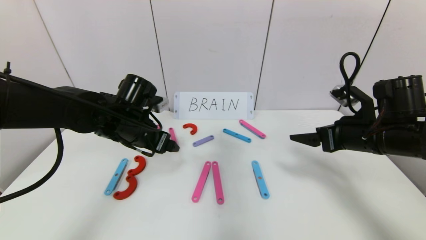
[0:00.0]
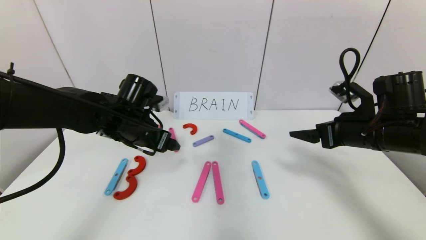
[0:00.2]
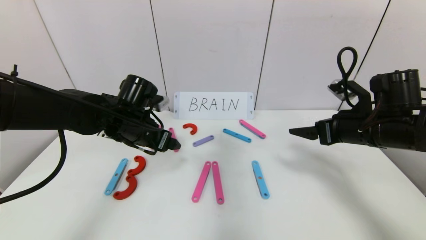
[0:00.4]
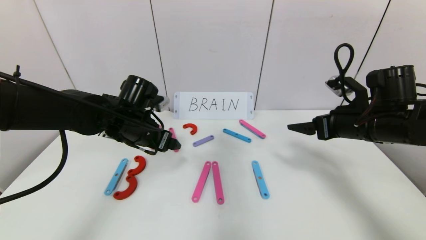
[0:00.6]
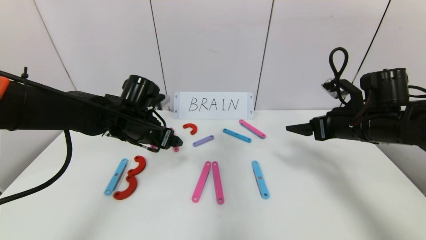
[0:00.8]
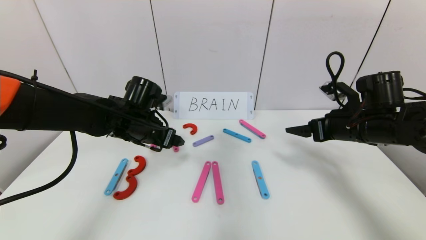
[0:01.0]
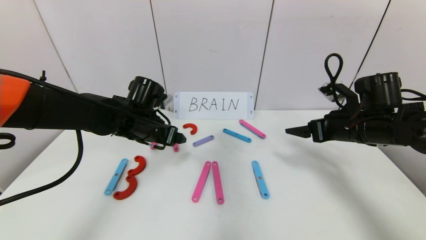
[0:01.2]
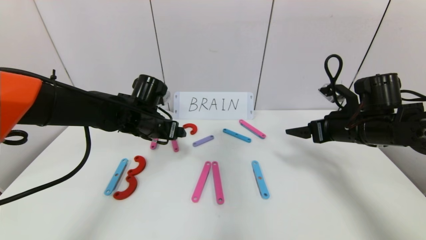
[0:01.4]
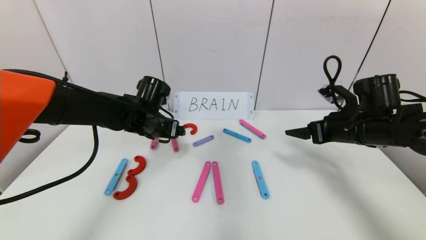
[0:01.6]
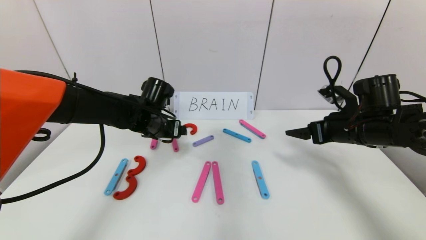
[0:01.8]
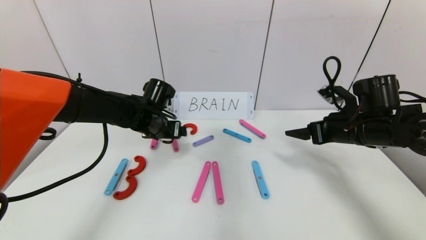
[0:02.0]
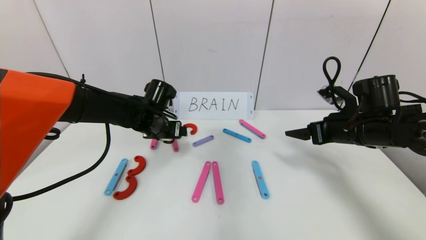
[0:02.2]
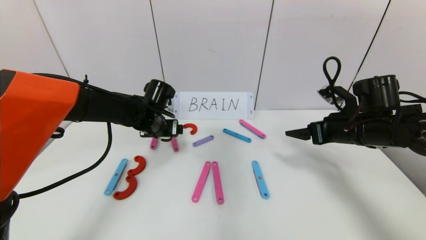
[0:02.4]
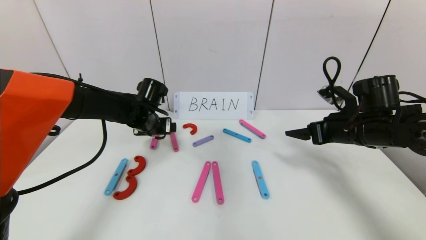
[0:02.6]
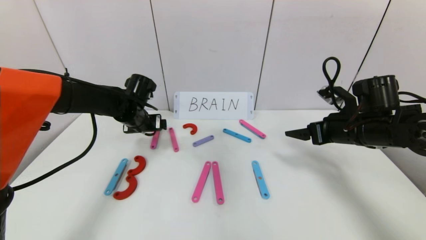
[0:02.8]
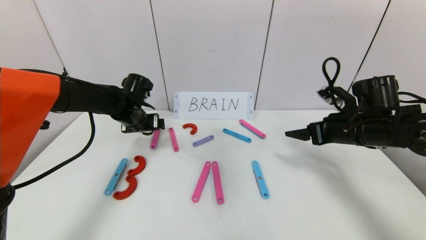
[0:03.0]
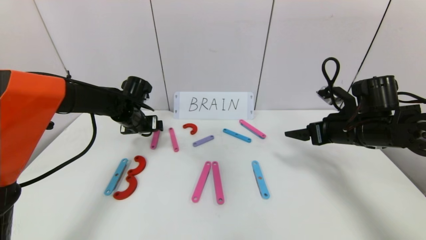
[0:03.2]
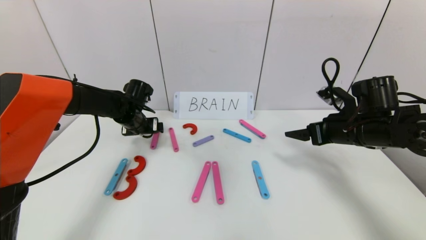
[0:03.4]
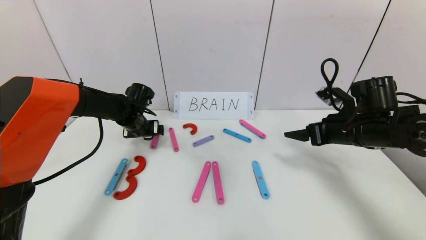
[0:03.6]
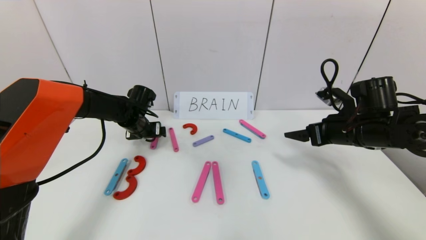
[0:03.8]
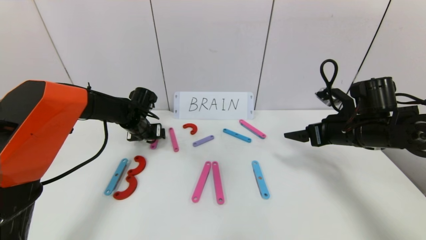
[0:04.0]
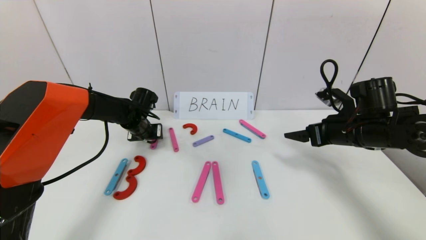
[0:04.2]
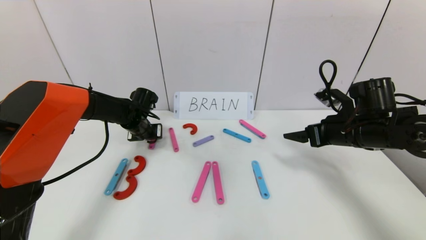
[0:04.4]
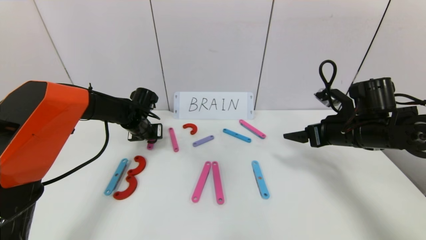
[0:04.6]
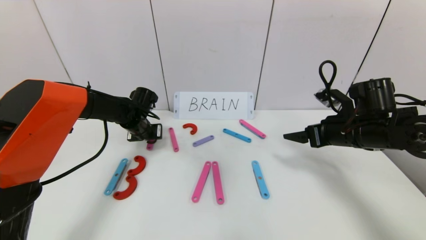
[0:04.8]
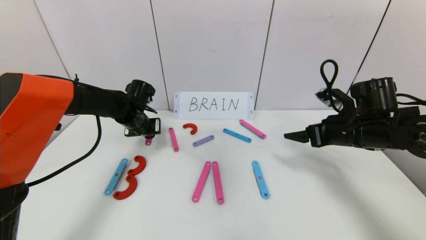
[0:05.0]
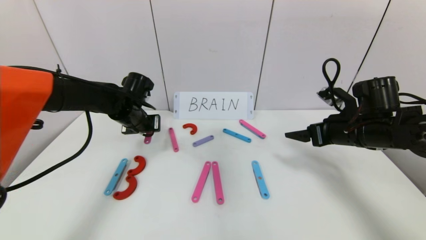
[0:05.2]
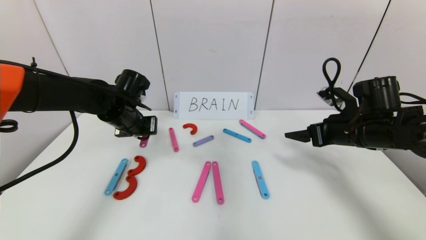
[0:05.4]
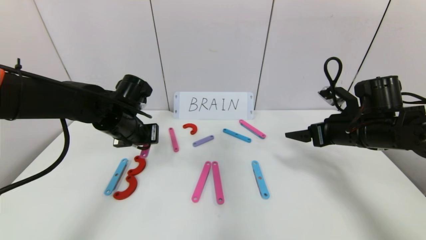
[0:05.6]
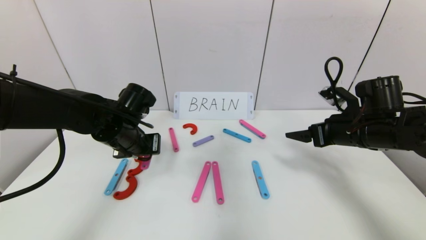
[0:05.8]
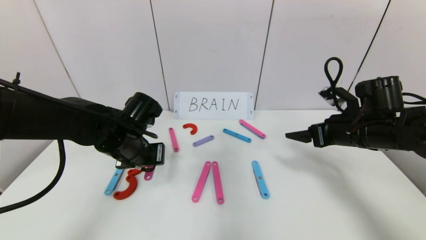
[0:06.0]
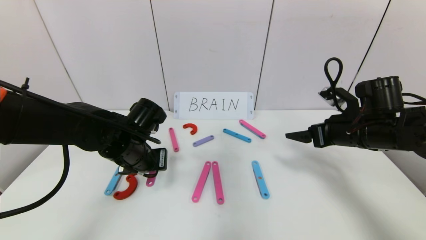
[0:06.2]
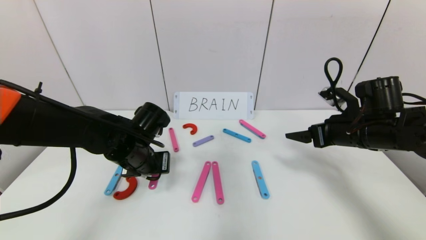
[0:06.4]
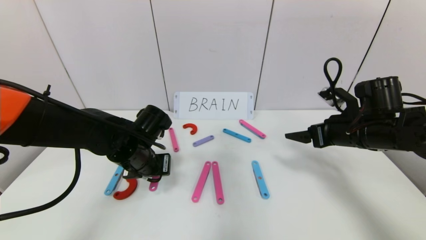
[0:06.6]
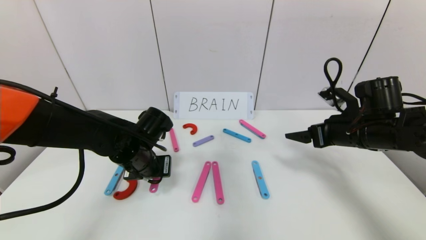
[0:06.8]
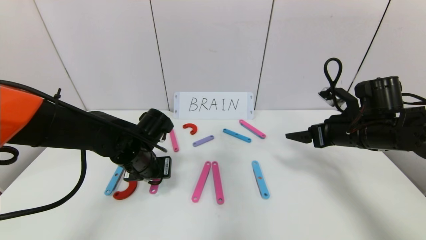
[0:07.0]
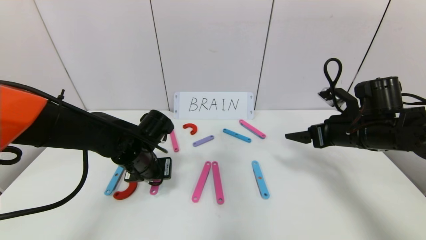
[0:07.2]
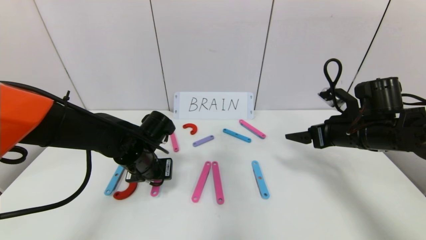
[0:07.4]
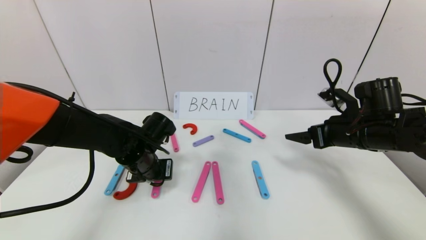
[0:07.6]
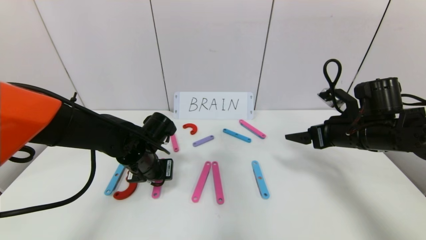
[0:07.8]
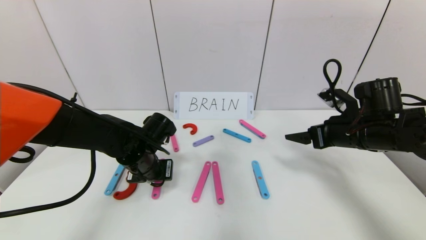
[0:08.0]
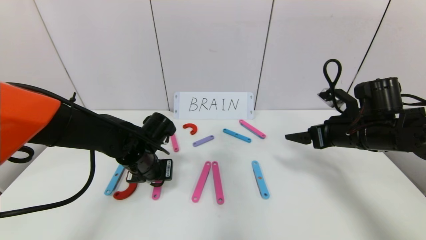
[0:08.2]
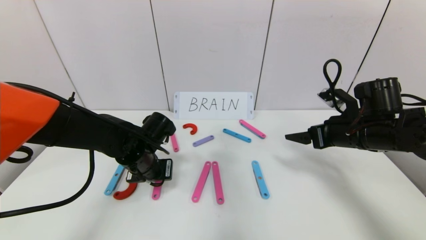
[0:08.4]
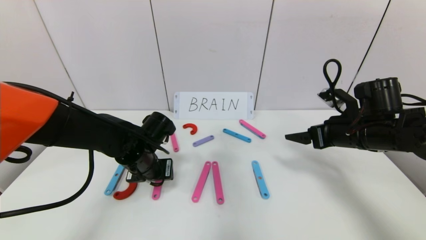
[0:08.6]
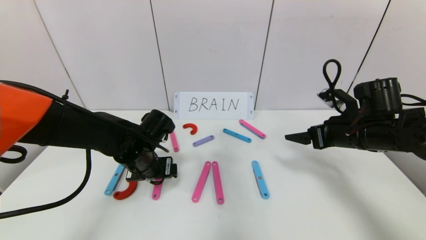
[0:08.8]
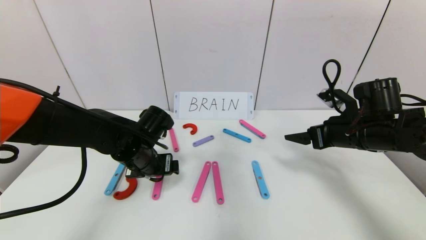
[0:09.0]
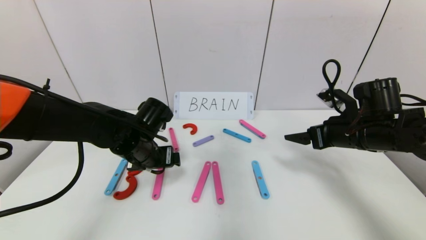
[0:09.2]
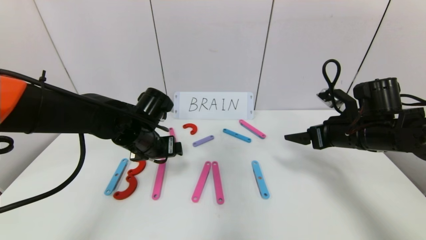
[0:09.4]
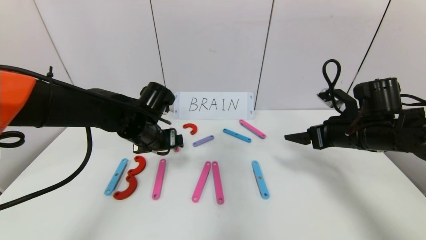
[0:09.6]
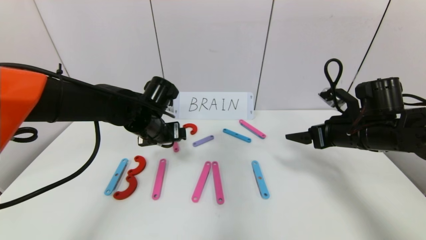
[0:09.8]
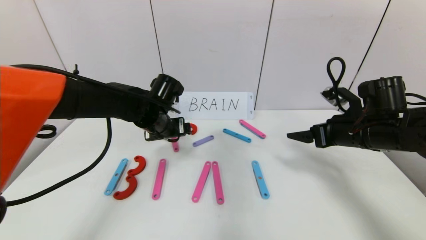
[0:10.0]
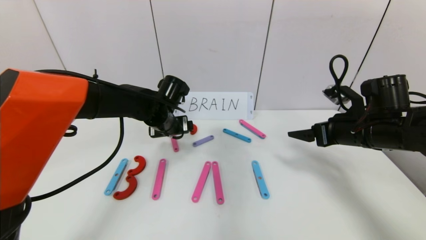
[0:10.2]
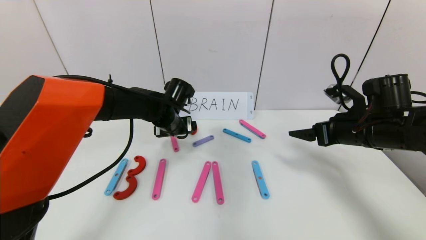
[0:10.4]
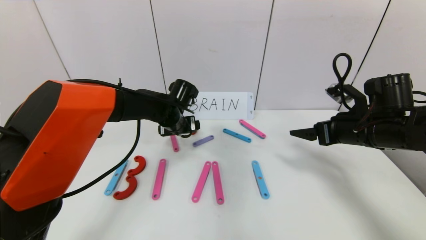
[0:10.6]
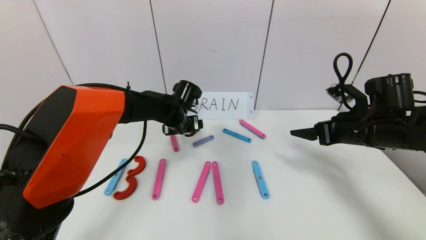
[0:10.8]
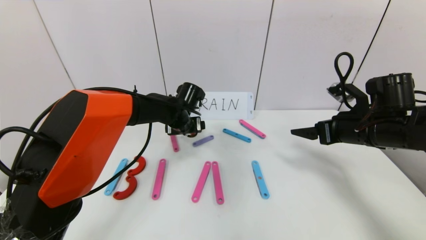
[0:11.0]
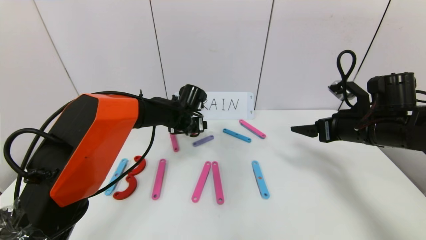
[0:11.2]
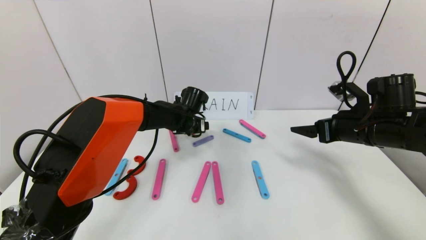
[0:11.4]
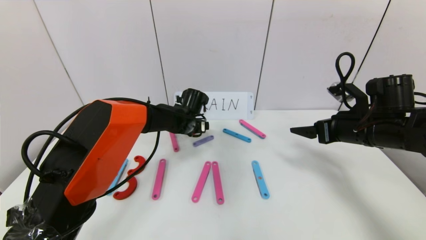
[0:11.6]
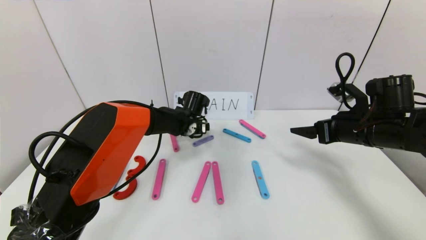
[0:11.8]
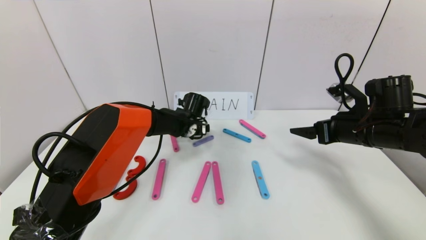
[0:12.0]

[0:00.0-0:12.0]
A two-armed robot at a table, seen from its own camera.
Task of the whole recording: rearrange the word baai as brain.
0:00.0 to 0:01.6: The left gripper ends up roughly 5 cm from where it was.
0:01.6 to 0:03.0: The left gripper goes about 5 cm to the left.
0:03.0 to 0:04.4: The left gripper ends up some 5 cm from where it was, and closes its fingers.
0:04.4 to 0:06.0: The left gripper goes approximately 15 cm backward.
0:06.0 to 0:07.6: The grippers move only a little.
0:07.6 to 0:09.0: The left gripper opens its fingers.
0:09.0 to 0:10.4: The left gripper moves forward, some 10 cm.
0:10.4 to 0:12.0: The left gripper goes some 10 cm downward and forward.

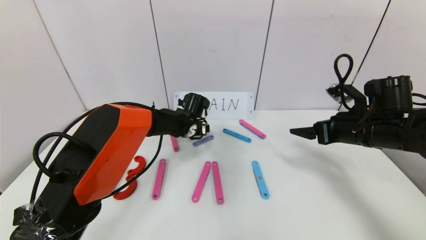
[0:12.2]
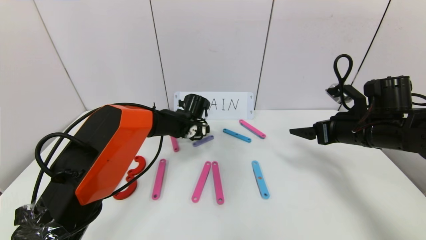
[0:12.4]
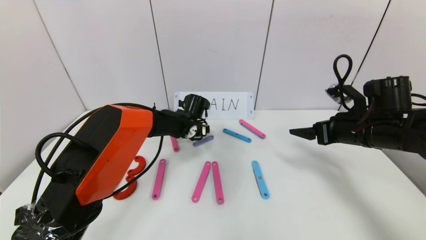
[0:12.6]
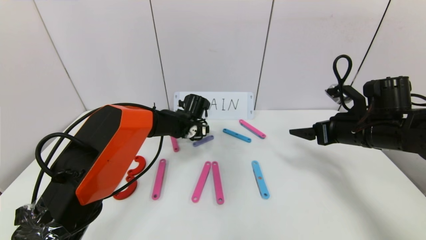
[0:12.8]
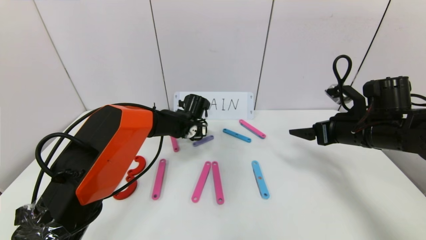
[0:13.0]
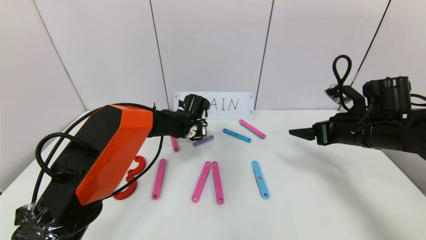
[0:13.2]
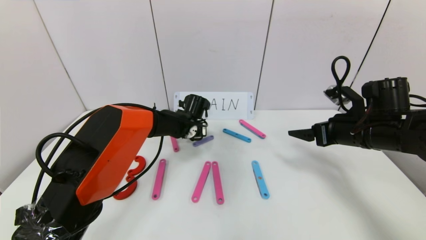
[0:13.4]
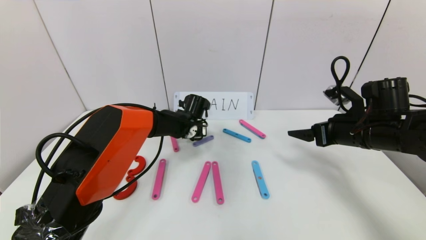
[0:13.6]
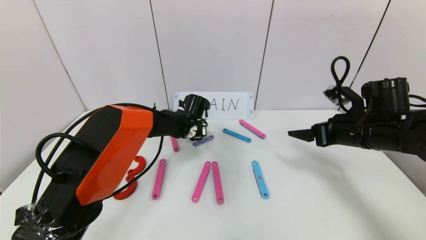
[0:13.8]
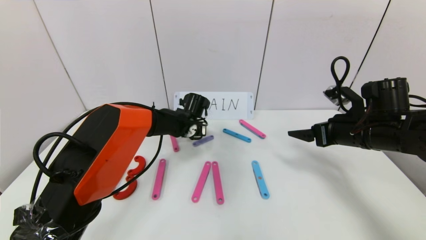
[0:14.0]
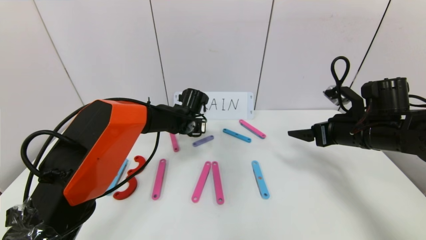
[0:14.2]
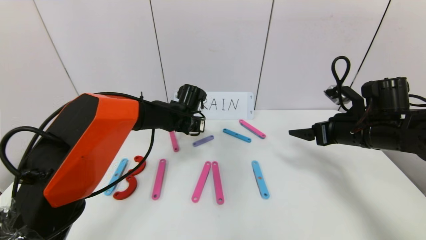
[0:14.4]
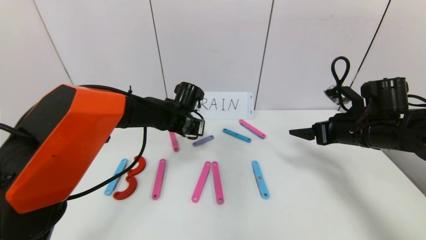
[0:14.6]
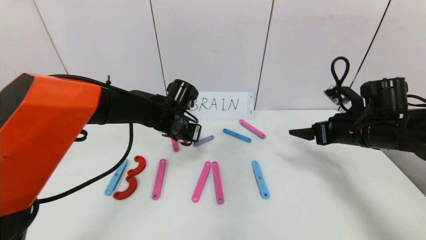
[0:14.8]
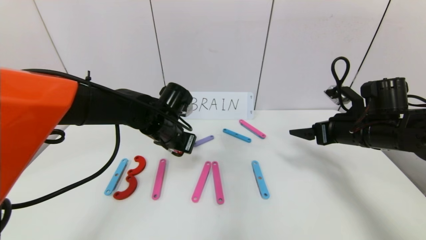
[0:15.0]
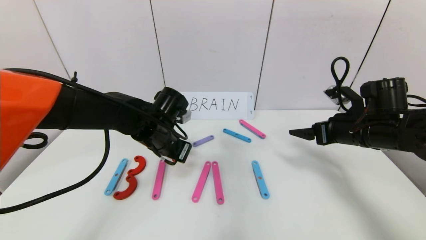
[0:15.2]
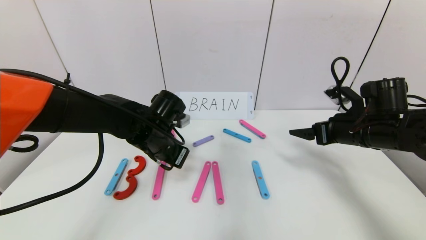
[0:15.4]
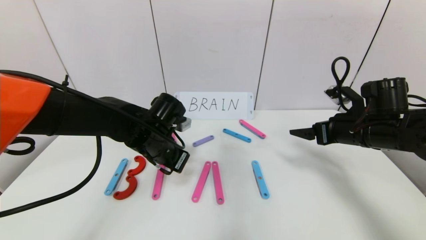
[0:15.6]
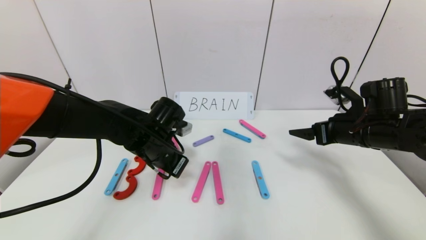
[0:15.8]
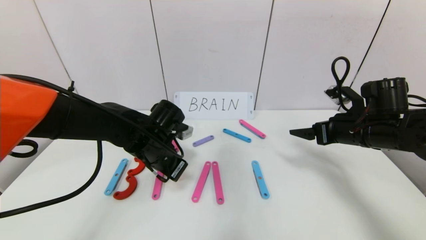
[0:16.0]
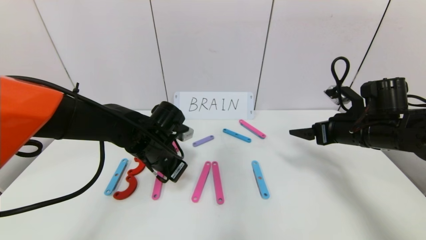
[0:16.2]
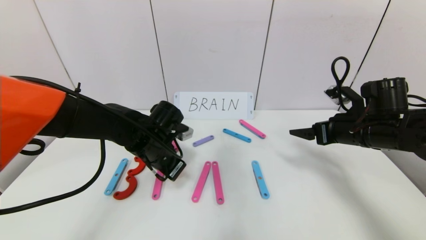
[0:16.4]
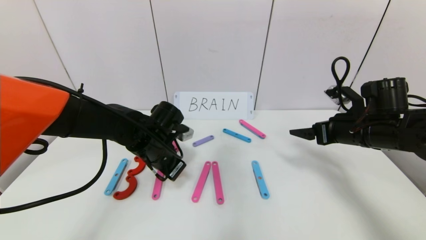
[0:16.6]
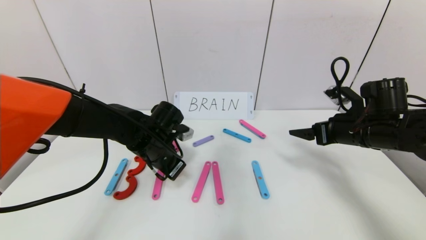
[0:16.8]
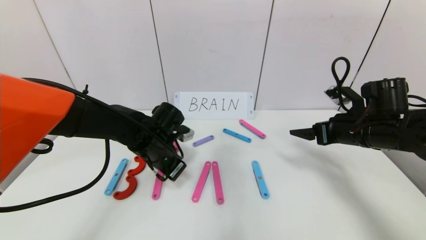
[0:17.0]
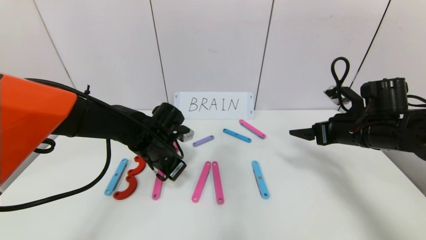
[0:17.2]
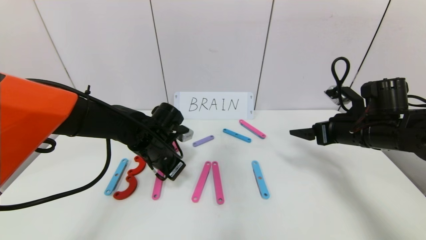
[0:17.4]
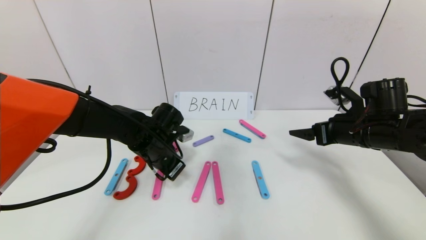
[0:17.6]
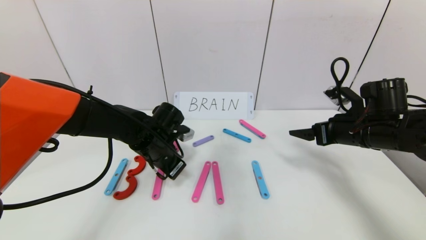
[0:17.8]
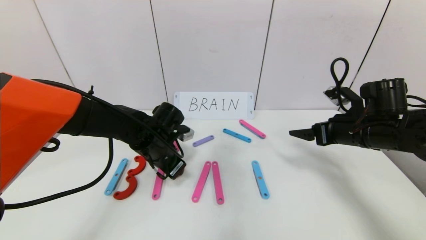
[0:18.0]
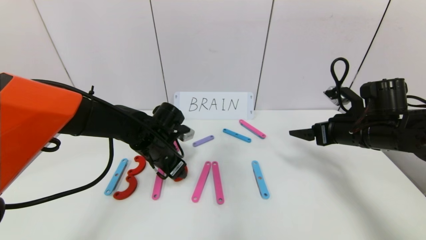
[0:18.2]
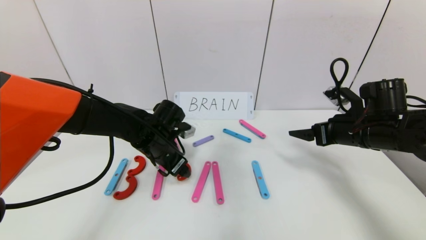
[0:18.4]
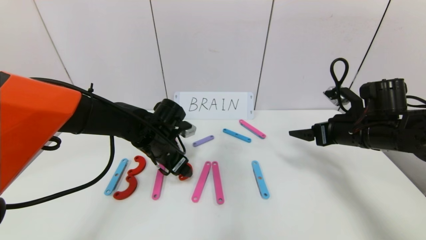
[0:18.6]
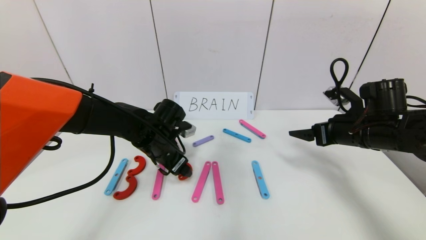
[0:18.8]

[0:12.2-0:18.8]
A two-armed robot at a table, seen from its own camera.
Task of the whole recording: rearrange the word baai as brain.
0:12.2 to 0:13.8: The left gripper closes.
0:13.8 to 0:15.4: The left gripper moves backward, upward and to the left, approximately 15 cm.
0:15.4 to 0:17.2: The grippers make only small movements.
0:17.2 to 0:18.8: The left gripper opens up.
